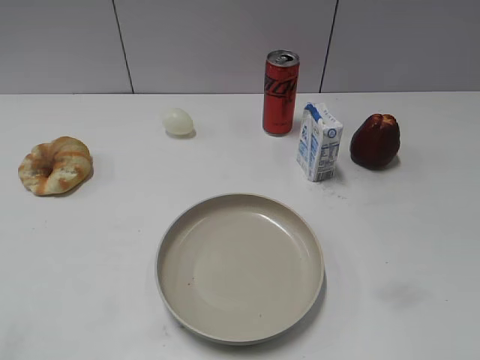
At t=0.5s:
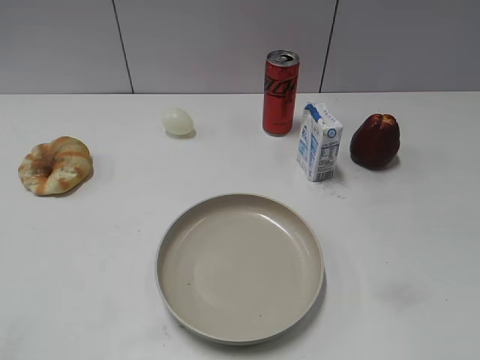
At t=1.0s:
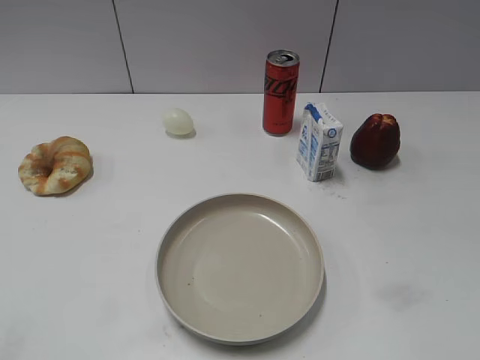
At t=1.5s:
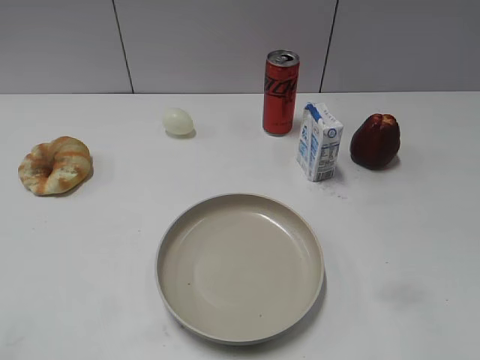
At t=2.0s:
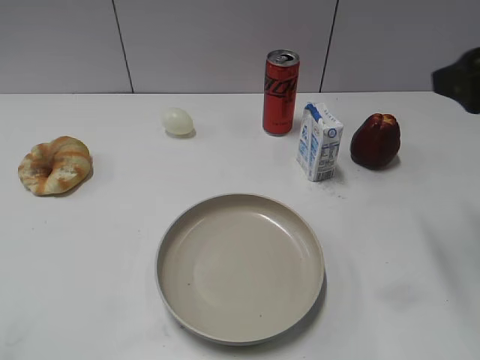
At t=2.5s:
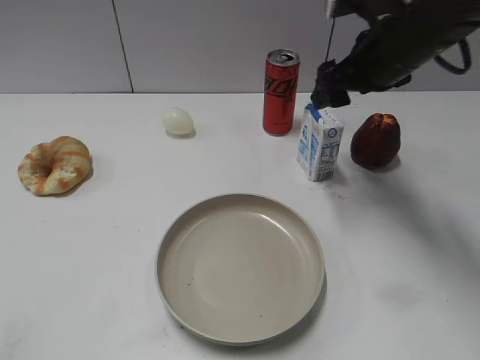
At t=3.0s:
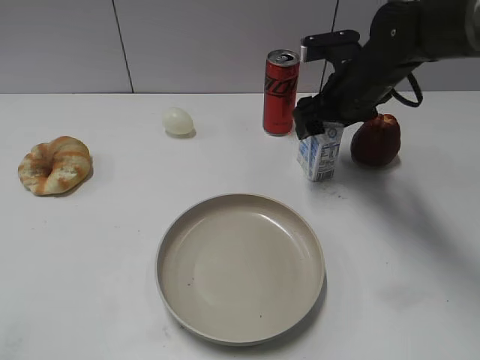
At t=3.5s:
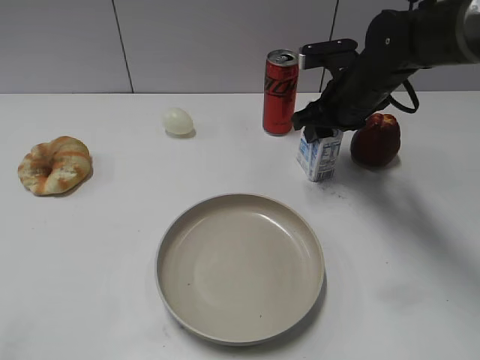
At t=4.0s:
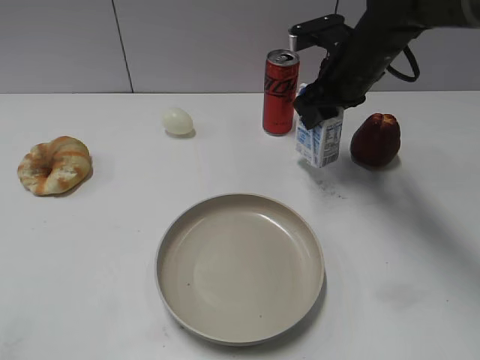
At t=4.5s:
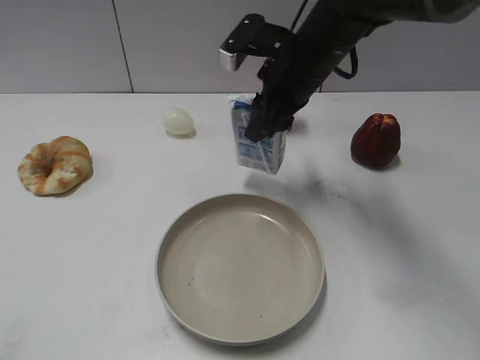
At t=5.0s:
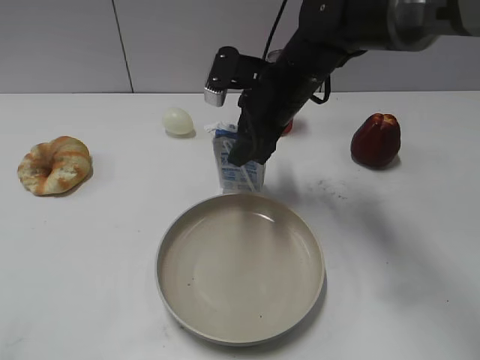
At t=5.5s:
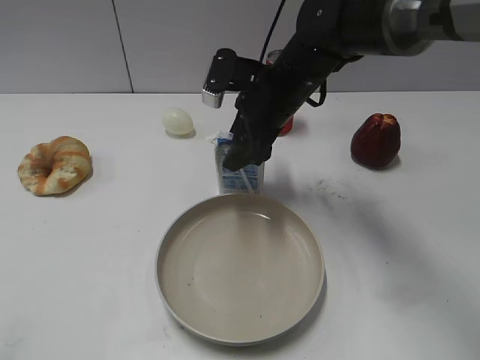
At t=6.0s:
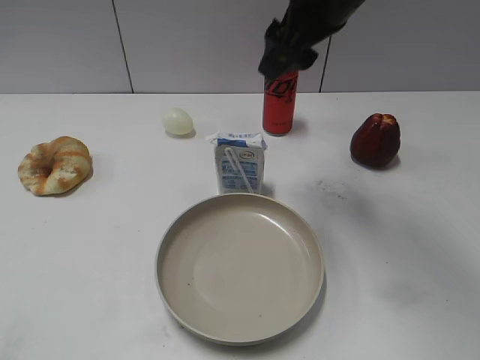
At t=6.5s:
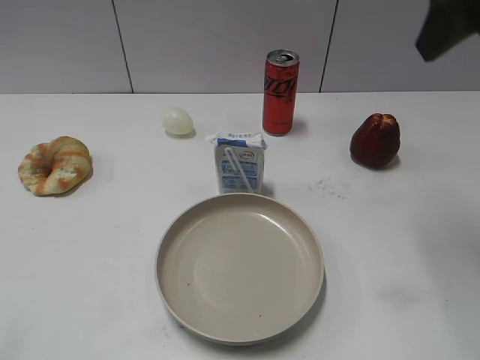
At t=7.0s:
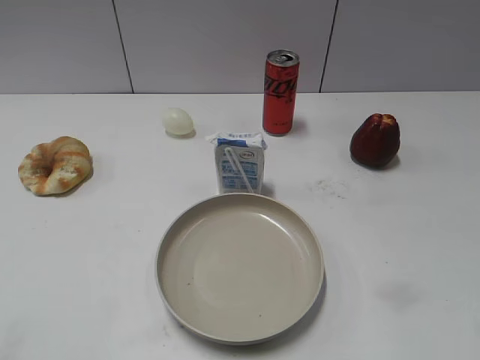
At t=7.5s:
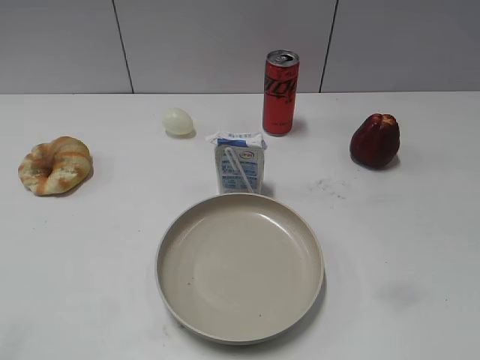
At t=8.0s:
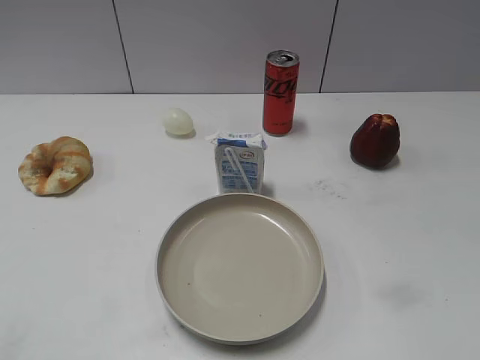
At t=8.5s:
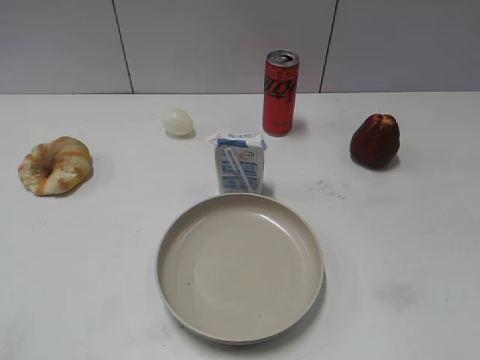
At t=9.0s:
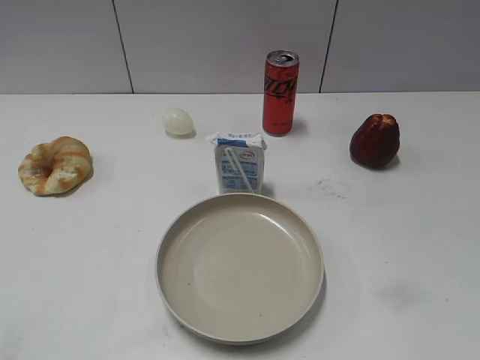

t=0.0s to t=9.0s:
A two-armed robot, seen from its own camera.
Step, t=1.0s to t=3.0s: Grasp the milk with right gripper.
Step, t=3.5s to t=5.5s: Place the milk on the table with right gripper.
t=2.0s to t=4.5s: The right gripper heads to the left, forward and downward, covering roughly 25 cm, and closes.
t=4.5s to t=7.0s: The right gripper travels backward, to the right and upward by about 30 cm, and opens its fingers.

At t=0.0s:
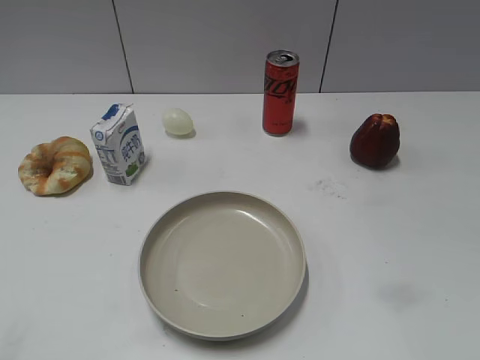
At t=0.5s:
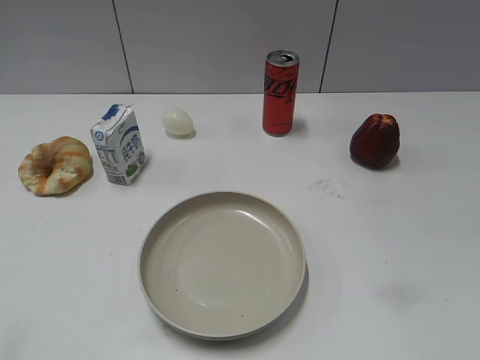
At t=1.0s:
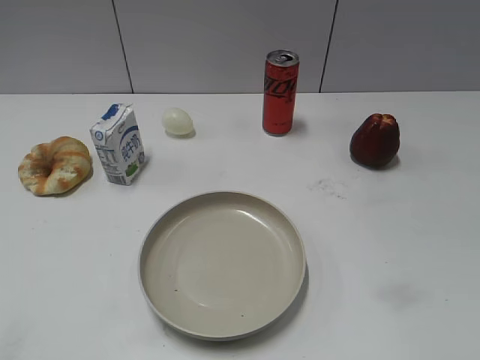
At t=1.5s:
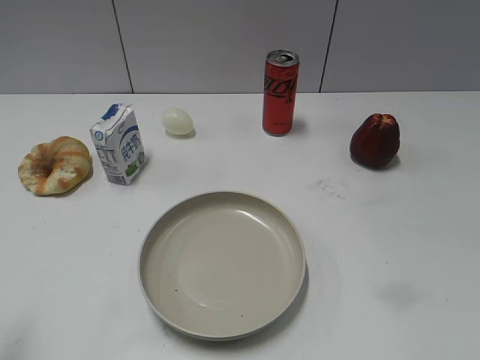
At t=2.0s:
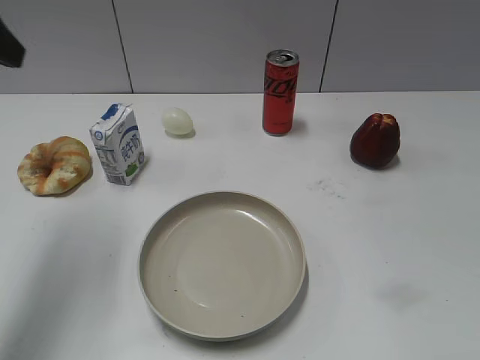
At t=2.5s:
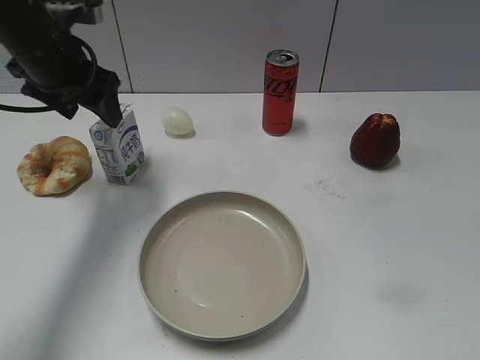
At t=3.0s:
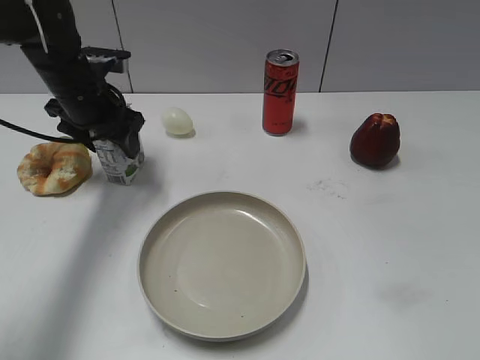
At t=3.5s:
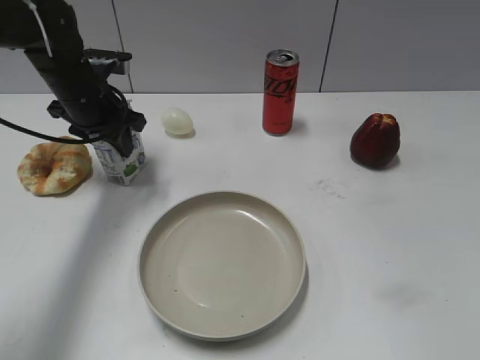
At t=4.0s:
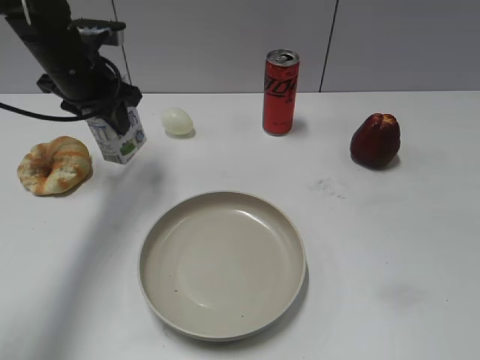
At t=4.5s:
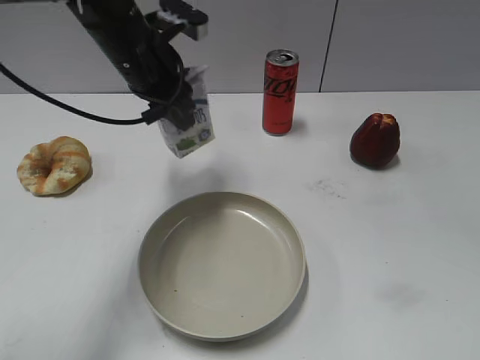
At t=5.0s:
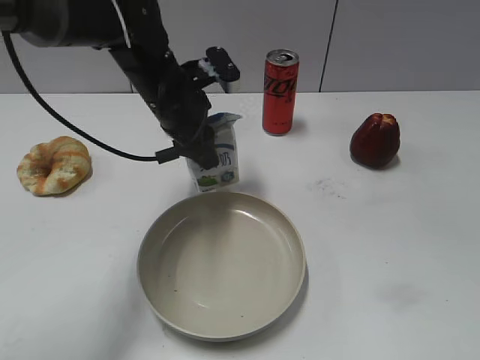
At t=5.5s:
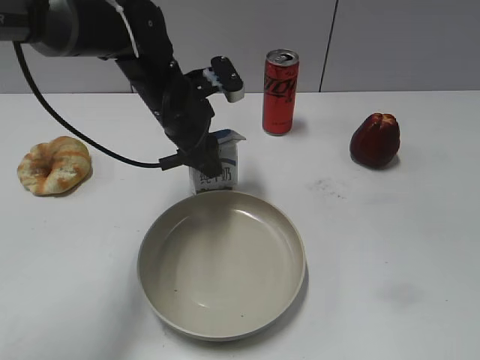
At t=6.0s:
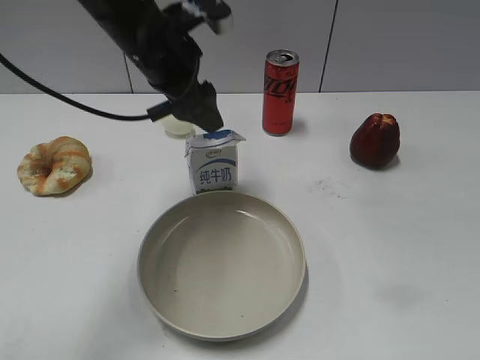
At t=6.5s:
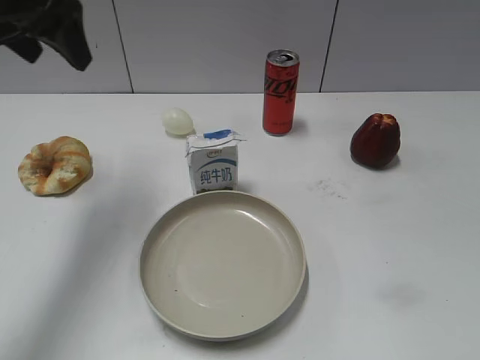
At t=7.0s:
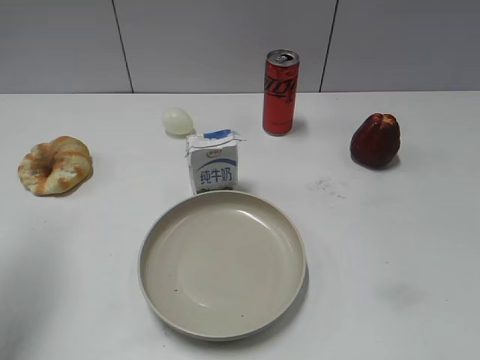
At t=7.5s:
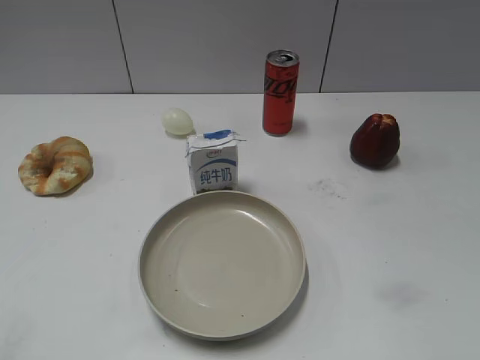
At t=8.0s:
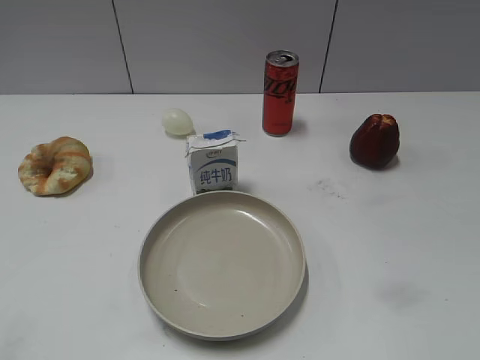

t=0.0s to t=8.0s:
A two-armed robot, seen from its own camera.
Step, t=1.0s to t=3.5s: Grasp the milk with left gripper.
Step, t=4.0s to t=5.5s: Place the milk on the table with left gripper.
t=2.0s to t=4.0s: The left gripper travels forward, downward and to the right by roughly 20 cm, and closes its fingers.
t=4.0s to t=6.0s: The left gripper goes roughly 10 cm to the right and upward, and opens.
t=6.0s to t=8.0s: The left gripper heads backward and to the left, covering about 40 cm.
